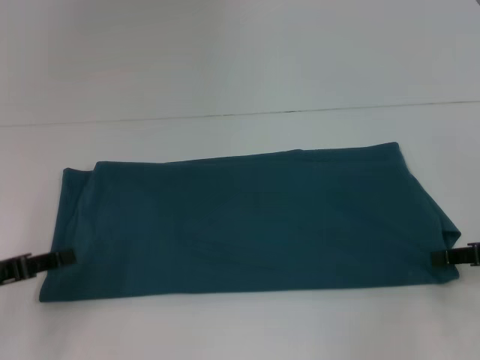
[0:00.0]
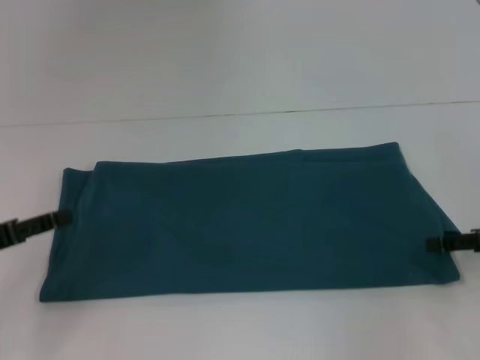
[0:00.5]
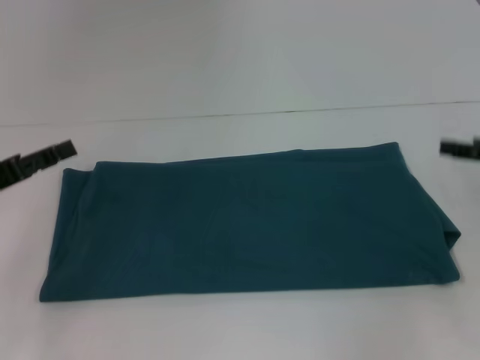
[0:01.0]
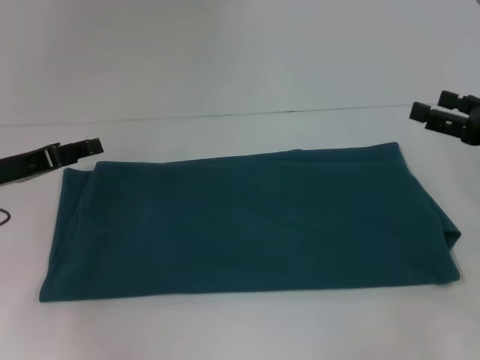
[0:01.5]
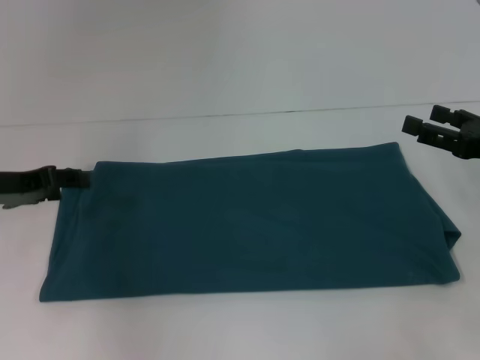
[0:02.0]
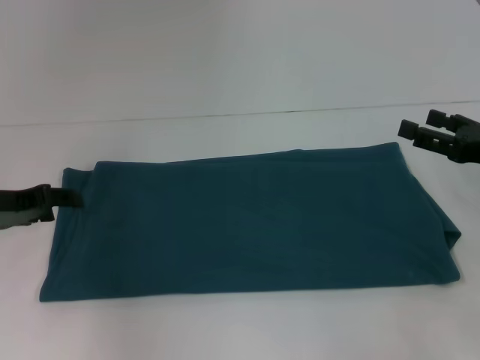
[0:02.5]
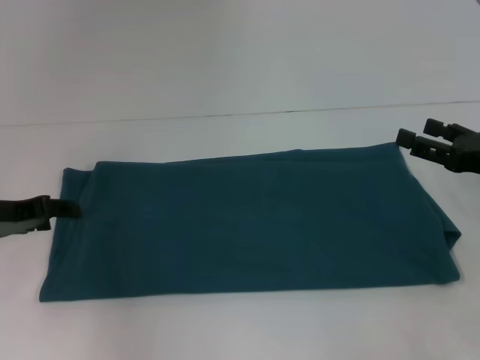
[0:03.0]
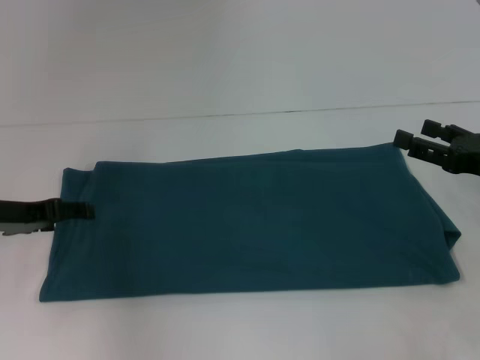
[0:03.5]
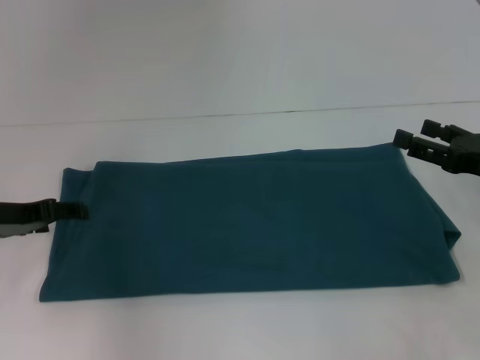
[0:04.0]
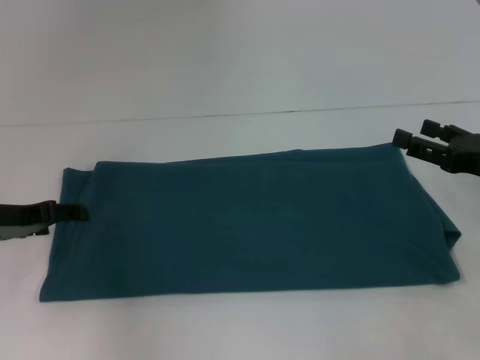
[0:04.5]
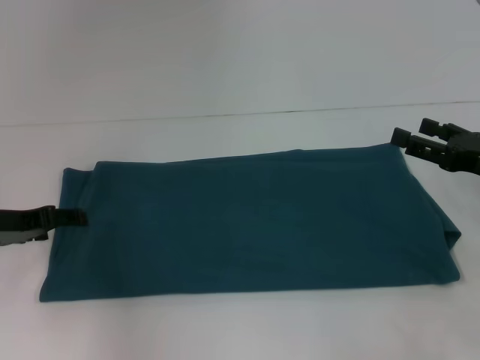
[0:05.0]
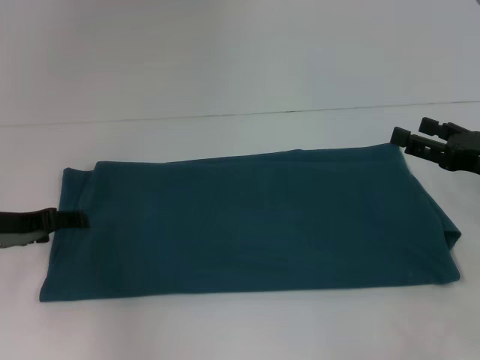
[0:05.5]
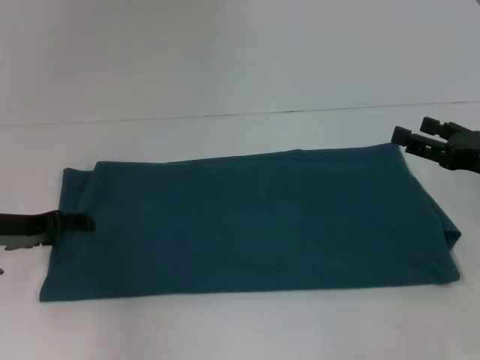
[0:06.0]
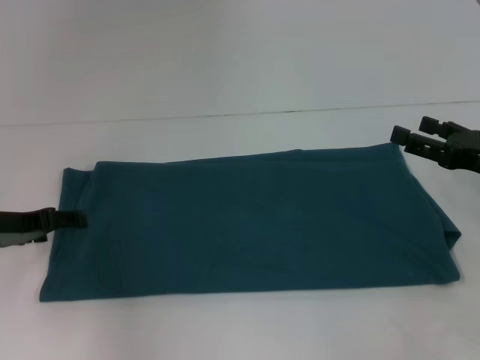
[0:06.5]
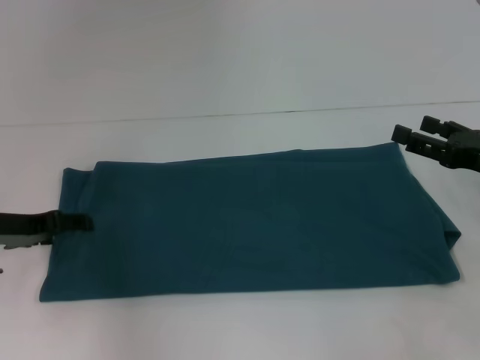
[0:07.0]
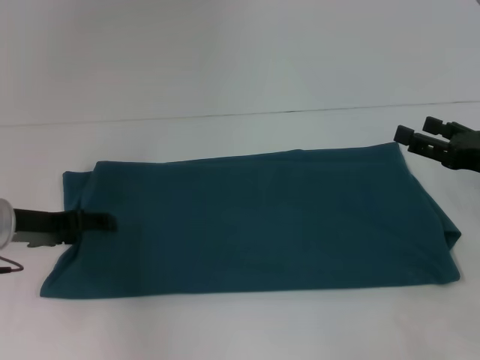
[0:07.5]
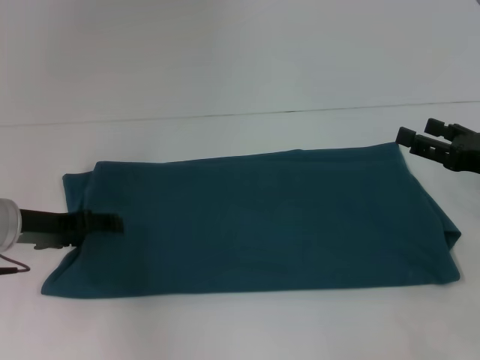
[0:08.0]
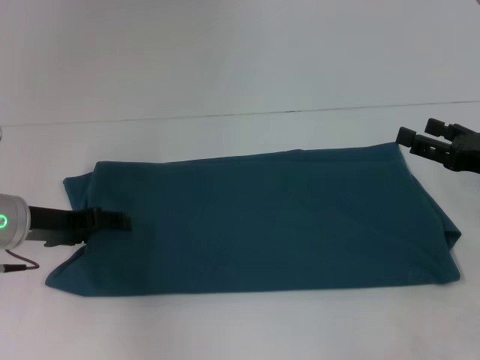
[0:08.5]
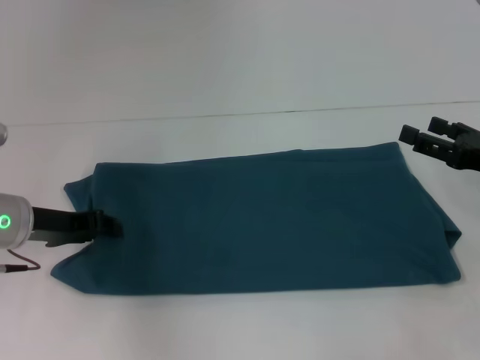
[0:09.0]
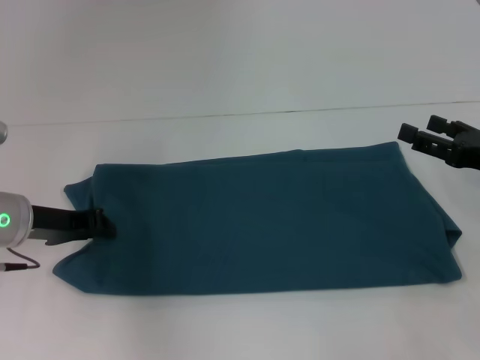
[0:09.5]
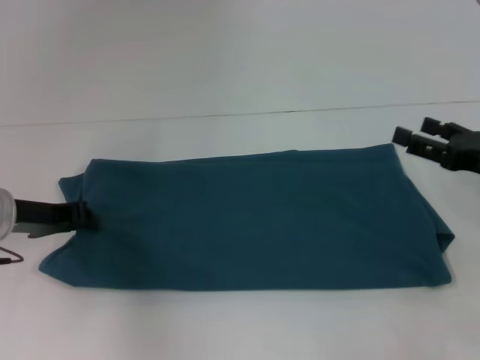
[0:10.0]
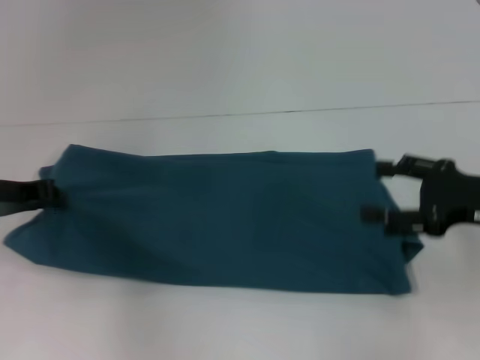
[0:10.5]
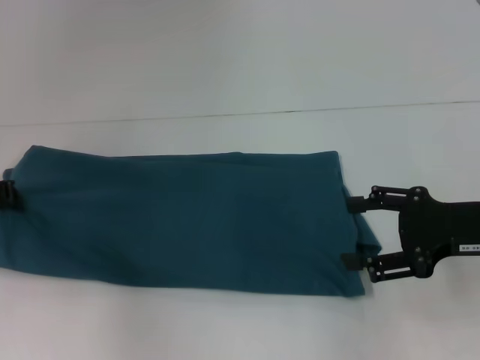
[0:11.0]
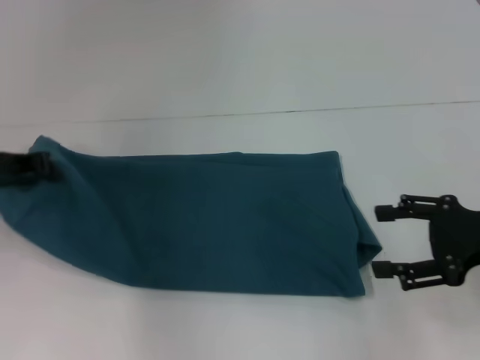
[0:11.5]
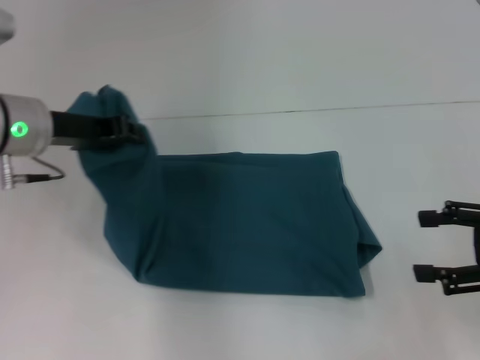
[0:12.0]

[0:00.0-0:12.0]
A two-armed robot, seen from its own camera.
0:00.0 to 0:02.0: The left gripper is displaced forward by roughly 10 cm, and opens up. Meanwhile the right gripper opens up.
0:02.0 to 0:04.0: There are only small adjustments of the grippers.
0:04.0 to 0:06.0: The two grippers keep their place.
0:06.0 to 0:08.0: The grippers make only small movements.
0:08.0 to 0:10.0: The left gripper closes.
0:10.0 to 0:12.0: The right gripper moves backward, about 5 cm, while the left gripper moves upward, approximately 10 cm.

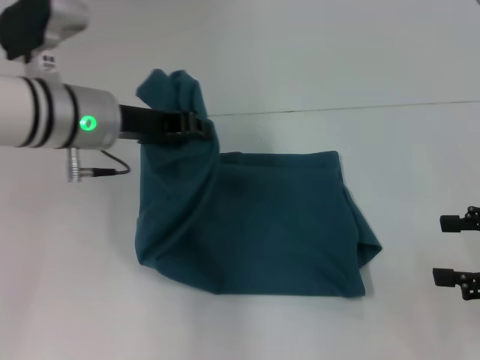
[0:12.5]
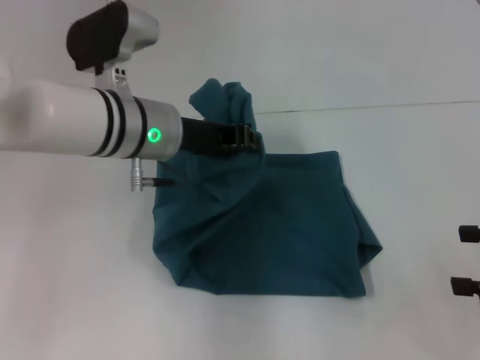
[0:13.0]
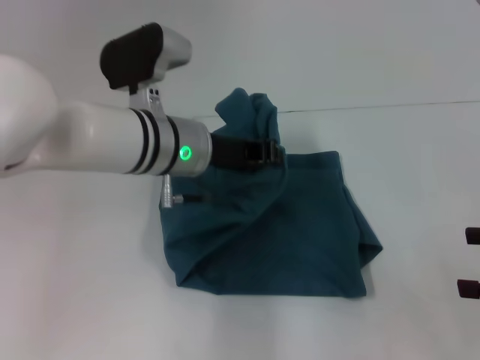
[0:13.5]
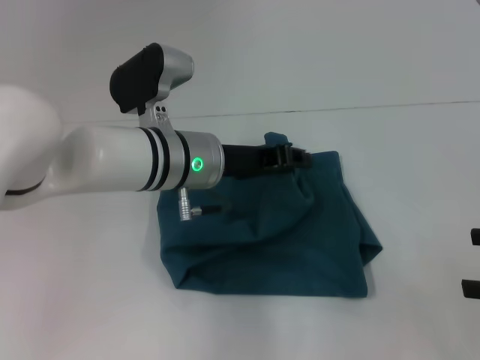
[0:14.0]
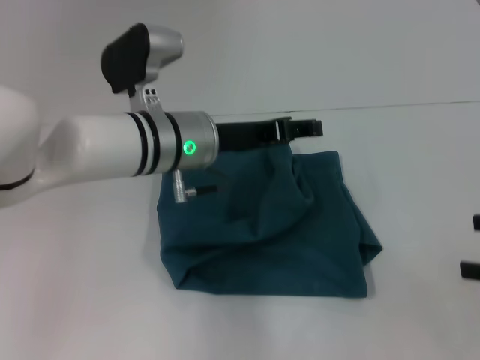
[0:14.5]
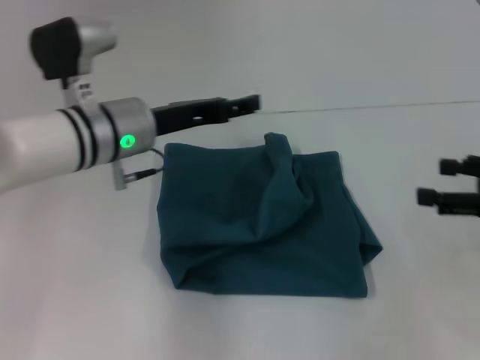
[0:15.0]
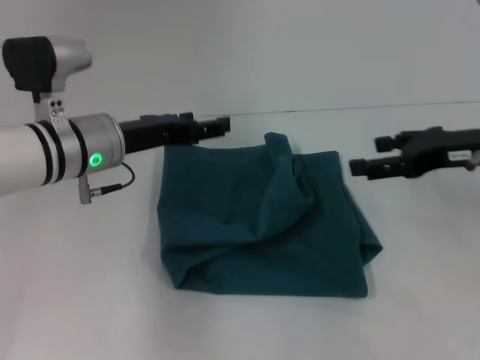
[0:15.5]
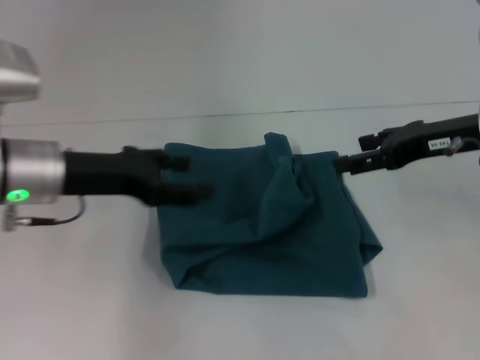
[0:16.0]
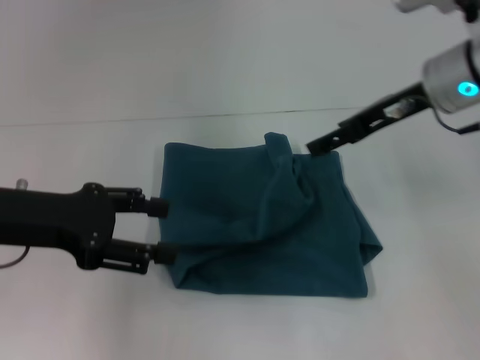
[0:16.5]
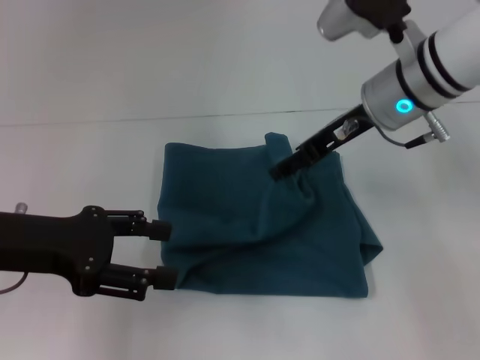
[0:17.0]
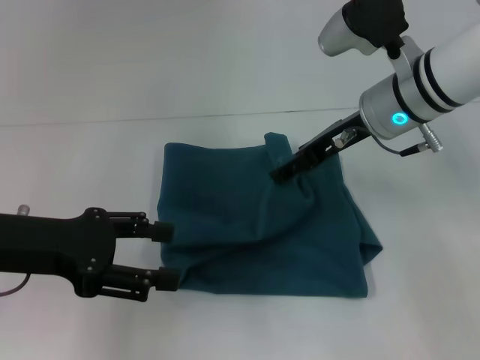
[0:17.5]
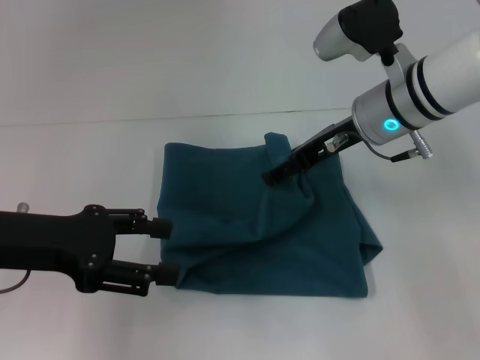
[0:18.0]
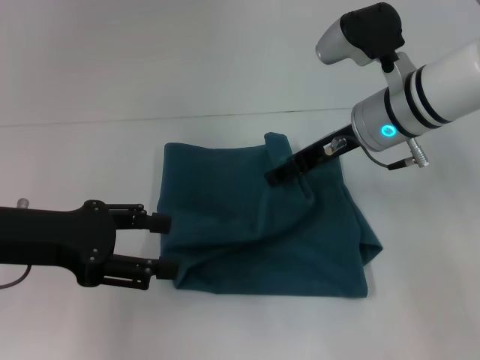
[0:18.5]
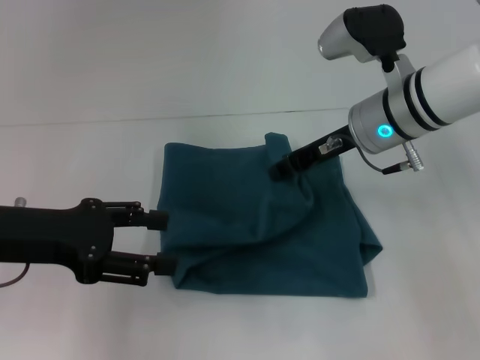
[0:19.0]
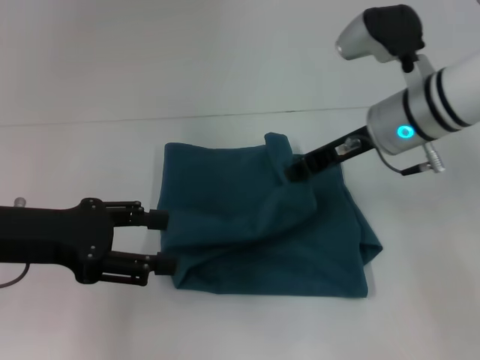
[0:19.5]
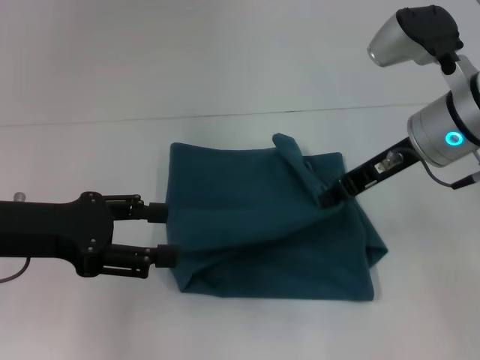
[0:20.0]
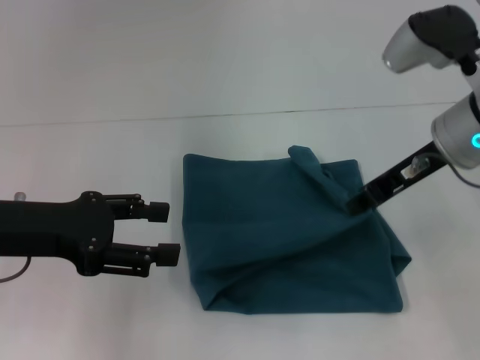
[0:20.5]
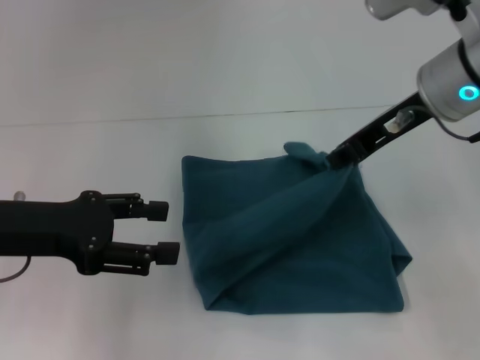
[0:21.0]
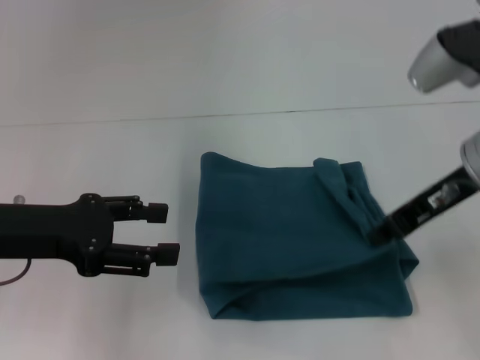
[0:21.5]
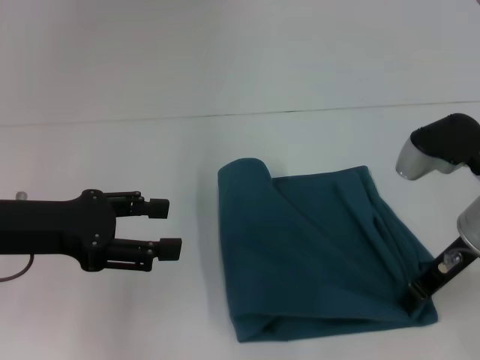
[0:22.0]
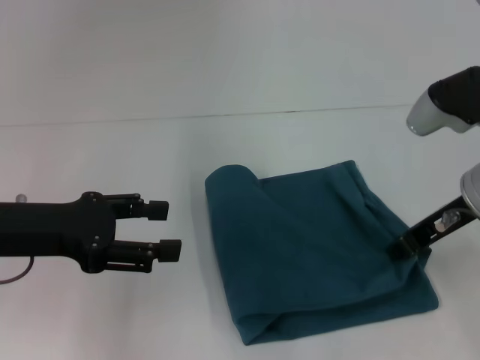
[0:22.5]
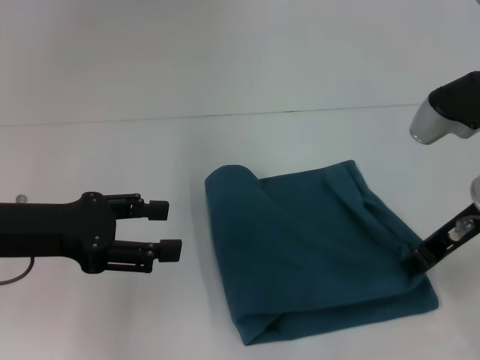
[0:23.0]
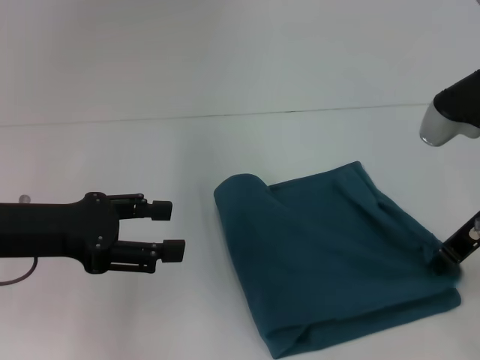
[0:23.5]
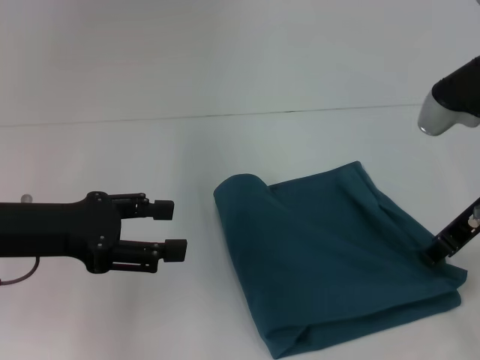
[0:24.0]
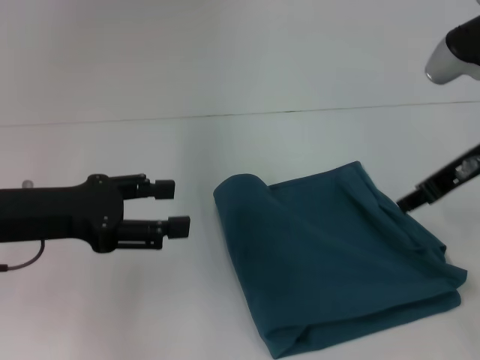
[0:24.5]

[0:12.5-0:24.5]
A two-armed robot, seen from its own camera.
Step, 0:12.5 to 0:15.5: Fold the clothes to the left.
0:12.5 to 0:14.5: The left gripper moves to the right, approximately 10 cm, and opens up.
0:14.5 to 0:16.5: The right gripper travels forward, to the left and upward by some 25 cm, while the left gripper shifts approximately 20 cm to the left and backward.
0:16.5 to 0:18.5: The right gripper heads downward, covering approximately 5 cm.
0:18.5 to 0:20.5: The right gripper is displaced backward by roughly 5 cm, and closes.
0:20.5 to 0:22.5: The right gripper travels downward and back again, roughly 5 cm each way.
0:22.5 to 0:24.5: The right gripper opens up.

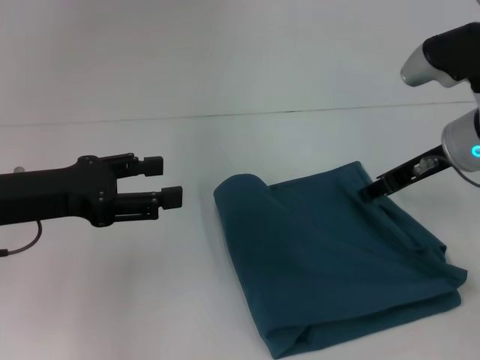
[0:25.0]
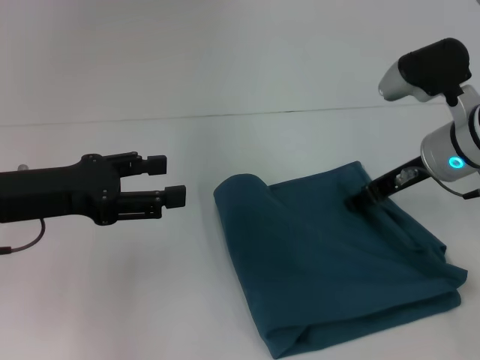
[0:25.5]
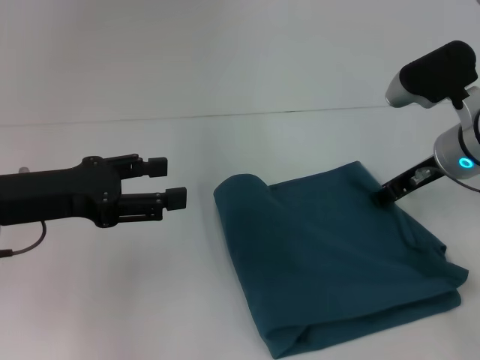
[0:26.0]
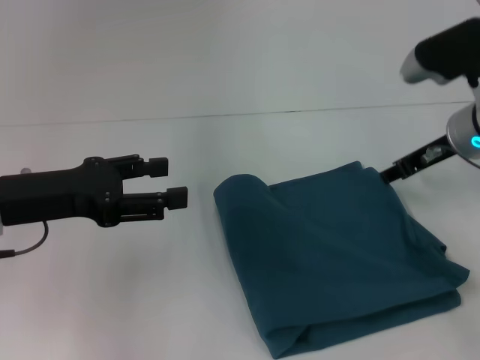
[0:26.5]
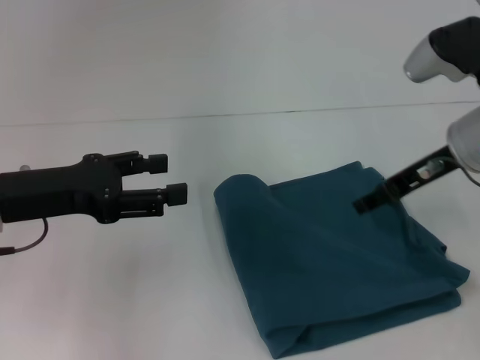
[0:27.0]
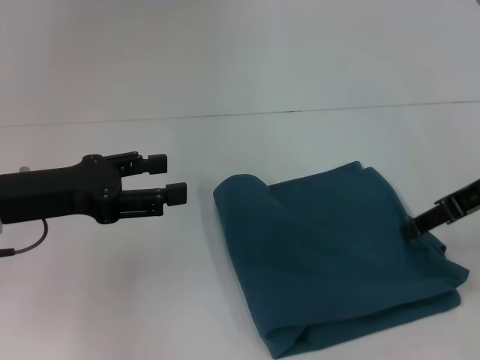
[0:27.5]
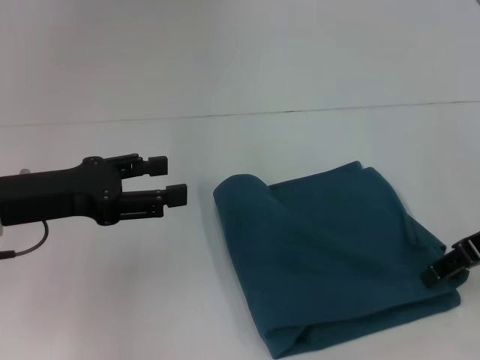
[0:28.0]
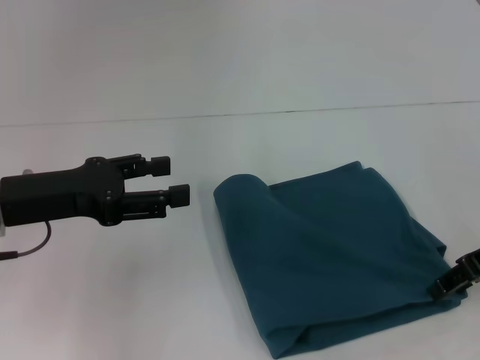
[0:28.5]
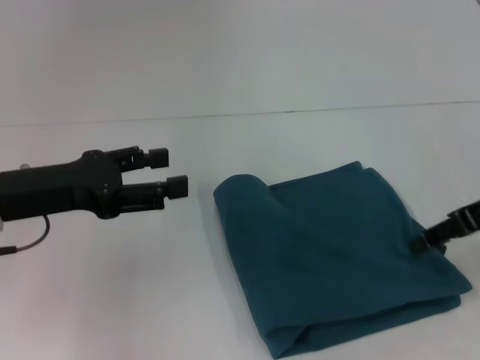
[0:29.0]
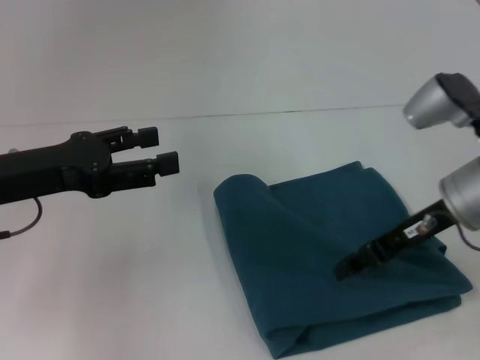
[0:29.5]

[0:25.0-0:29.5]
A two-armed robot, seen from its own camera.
0:25.0 to 0:27.0: The grippers move only a little.
0:27.0 to 0:29.5: The right gripper reaches some 5 cm to the right, then returns.
